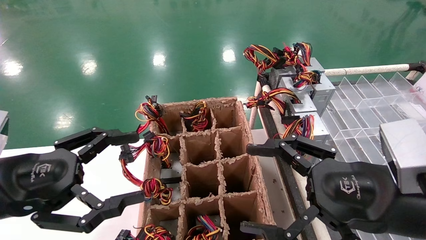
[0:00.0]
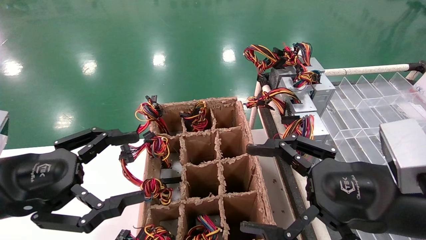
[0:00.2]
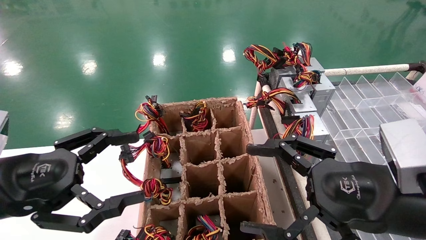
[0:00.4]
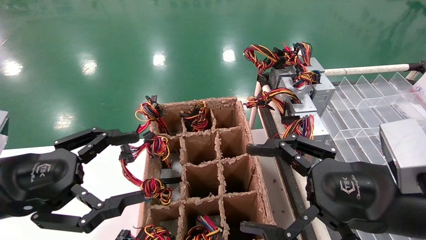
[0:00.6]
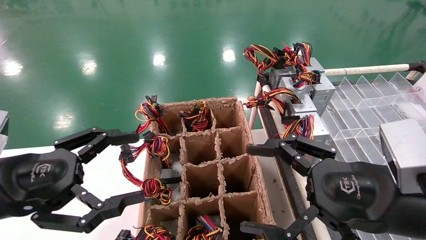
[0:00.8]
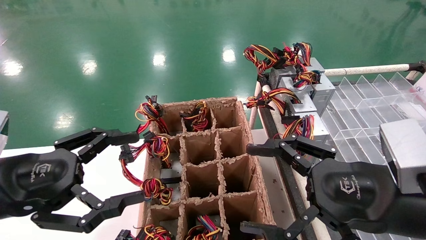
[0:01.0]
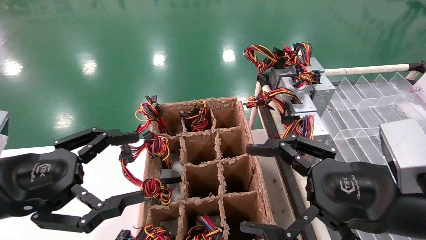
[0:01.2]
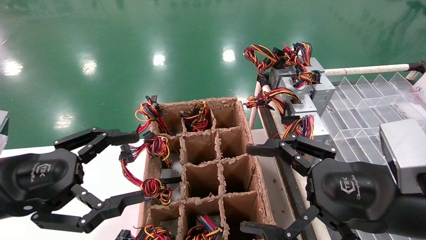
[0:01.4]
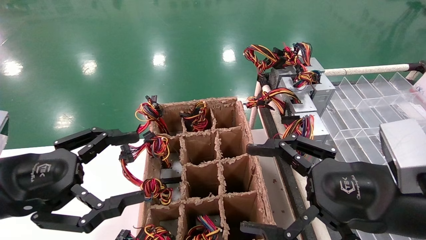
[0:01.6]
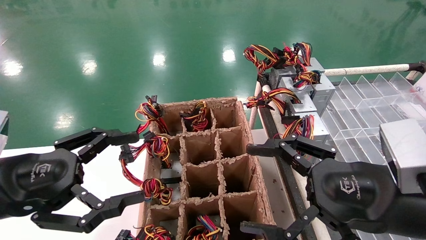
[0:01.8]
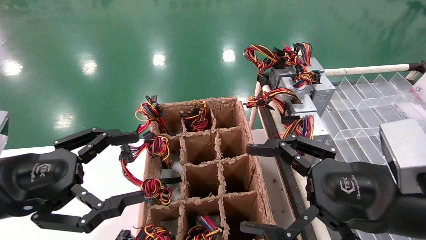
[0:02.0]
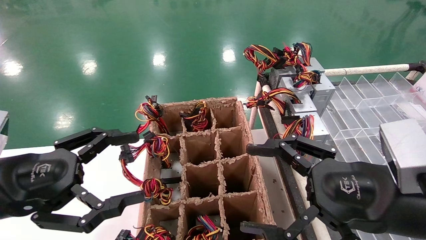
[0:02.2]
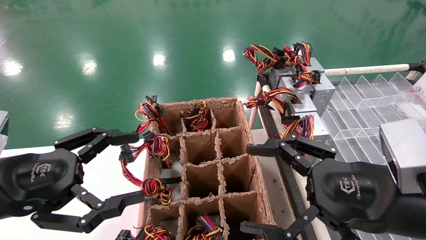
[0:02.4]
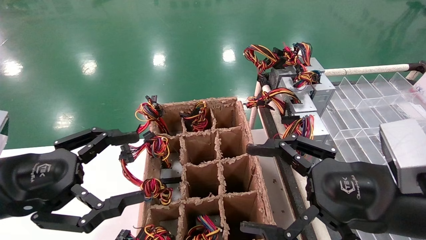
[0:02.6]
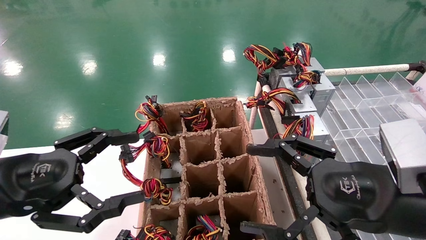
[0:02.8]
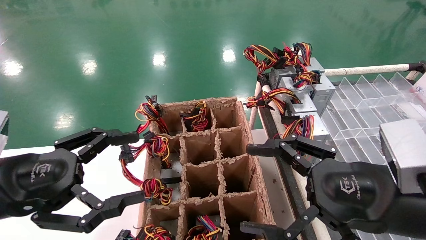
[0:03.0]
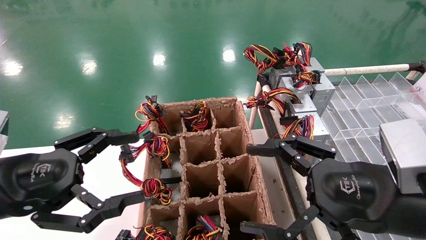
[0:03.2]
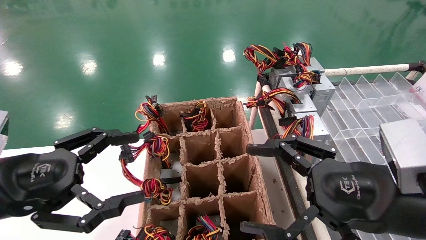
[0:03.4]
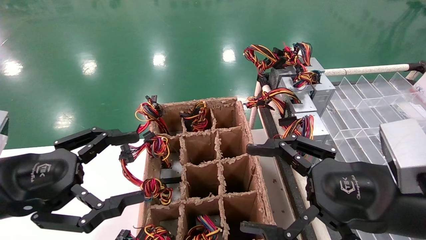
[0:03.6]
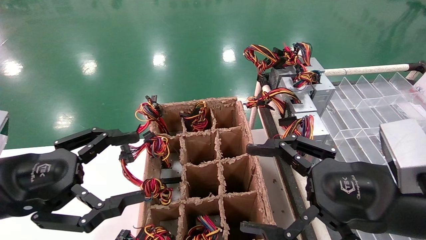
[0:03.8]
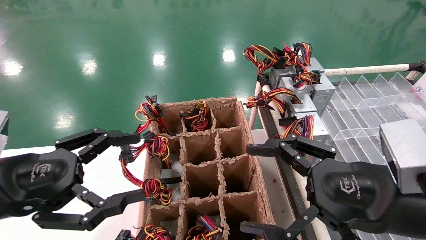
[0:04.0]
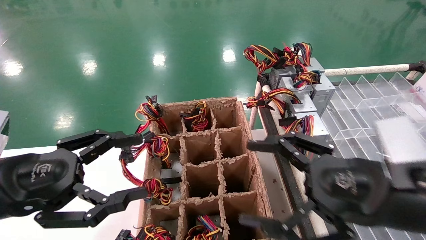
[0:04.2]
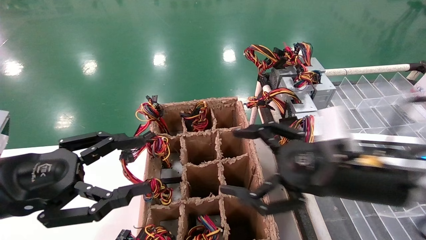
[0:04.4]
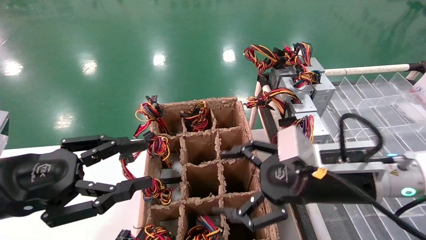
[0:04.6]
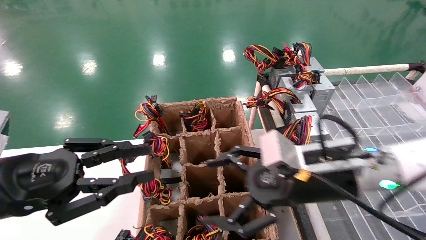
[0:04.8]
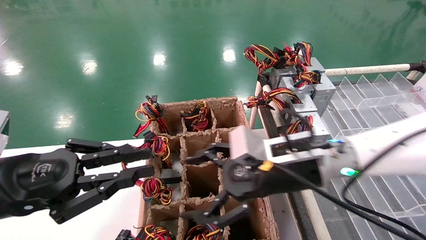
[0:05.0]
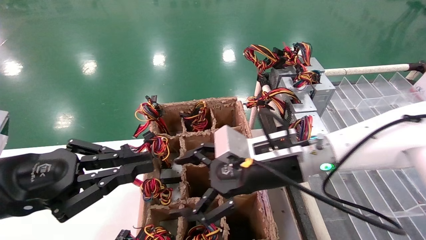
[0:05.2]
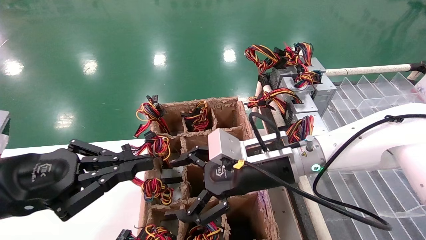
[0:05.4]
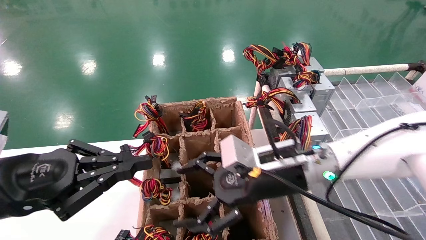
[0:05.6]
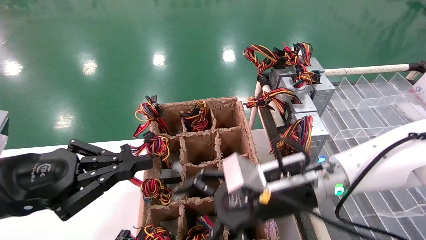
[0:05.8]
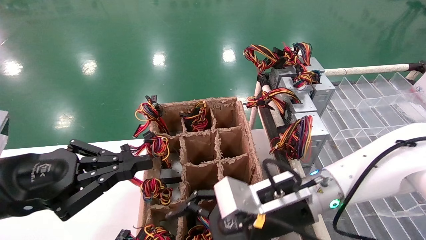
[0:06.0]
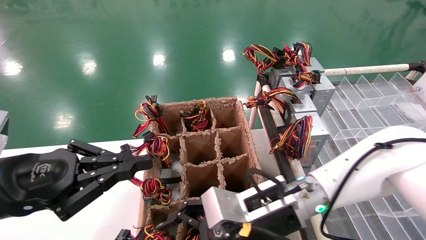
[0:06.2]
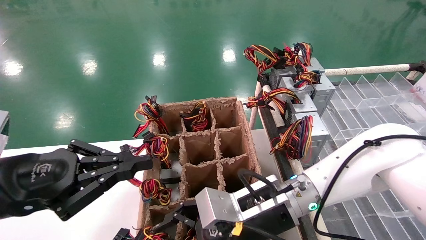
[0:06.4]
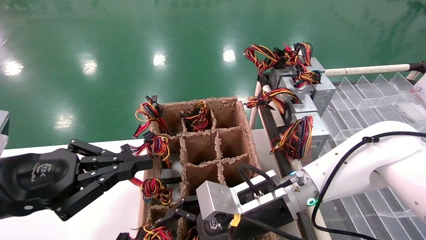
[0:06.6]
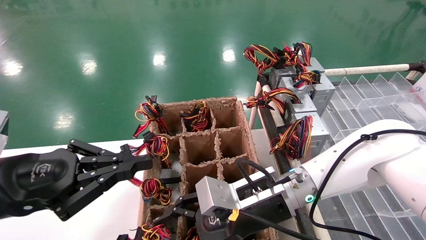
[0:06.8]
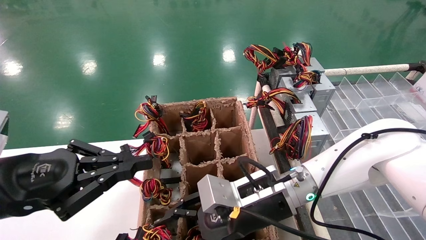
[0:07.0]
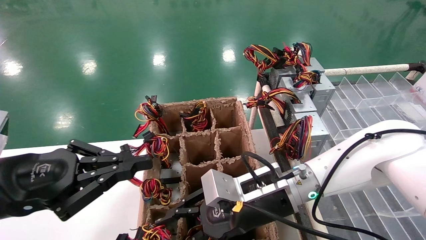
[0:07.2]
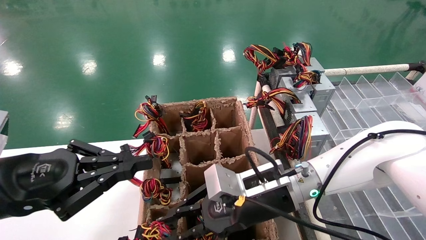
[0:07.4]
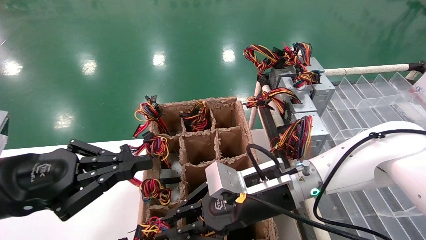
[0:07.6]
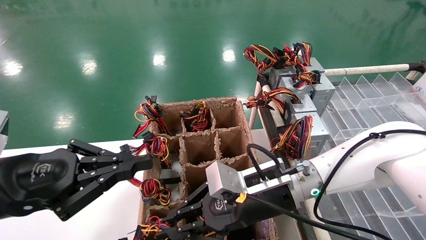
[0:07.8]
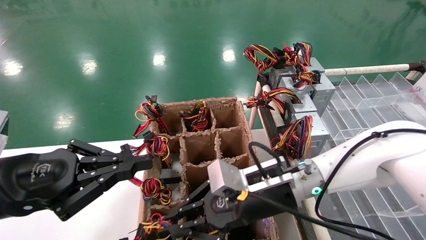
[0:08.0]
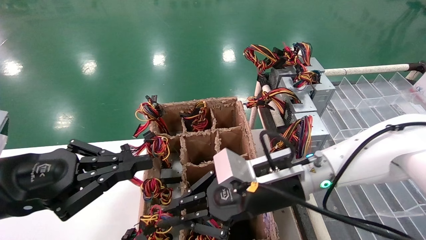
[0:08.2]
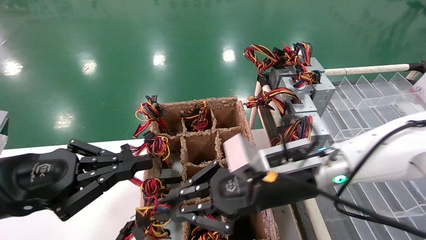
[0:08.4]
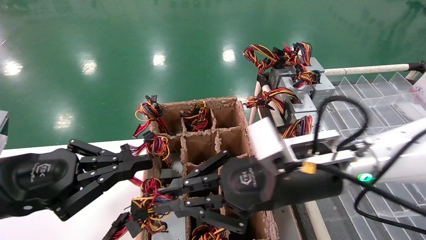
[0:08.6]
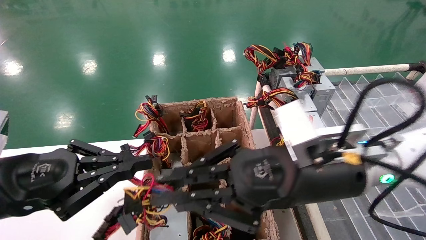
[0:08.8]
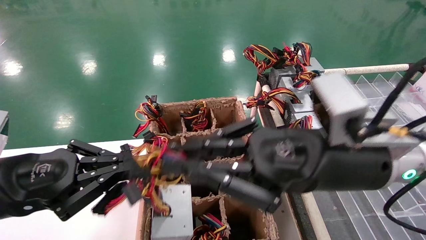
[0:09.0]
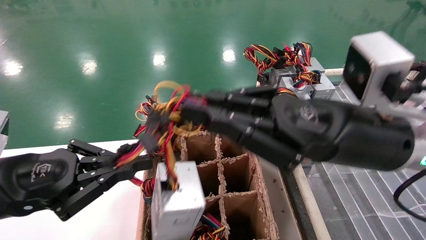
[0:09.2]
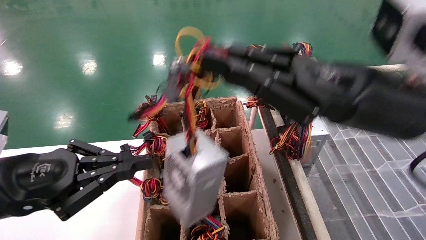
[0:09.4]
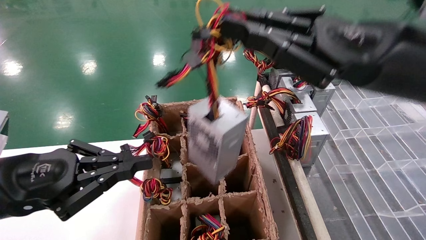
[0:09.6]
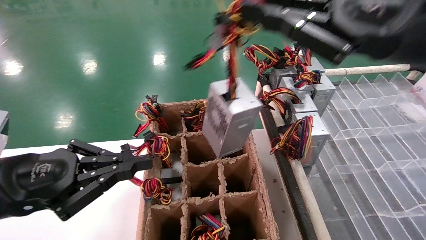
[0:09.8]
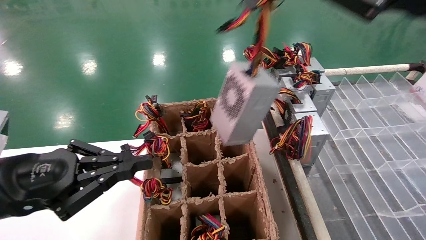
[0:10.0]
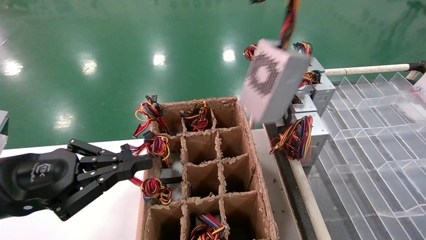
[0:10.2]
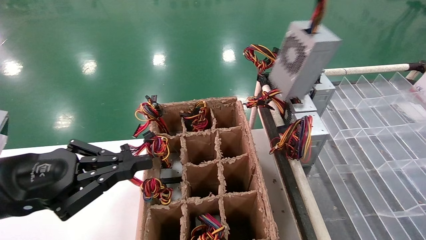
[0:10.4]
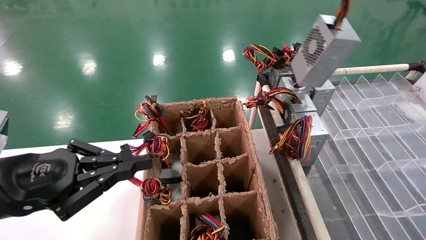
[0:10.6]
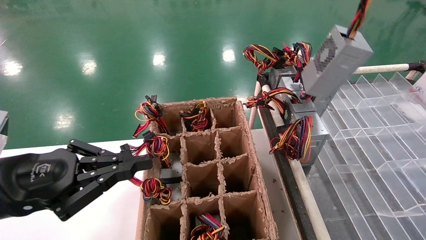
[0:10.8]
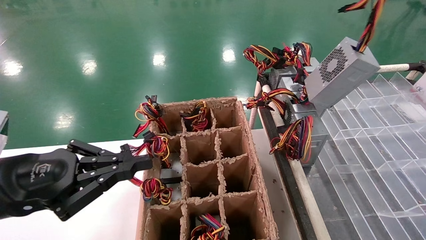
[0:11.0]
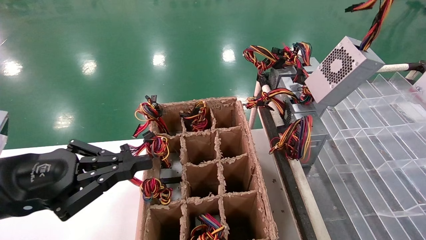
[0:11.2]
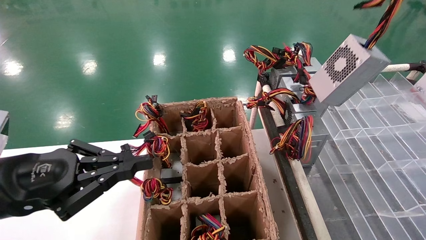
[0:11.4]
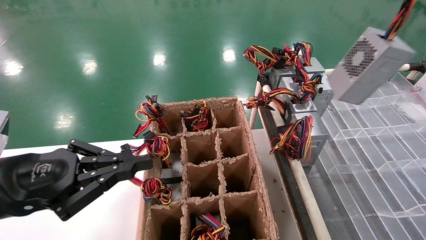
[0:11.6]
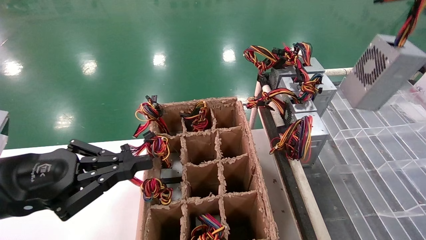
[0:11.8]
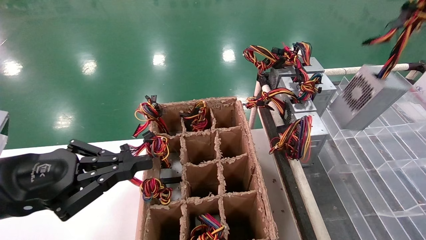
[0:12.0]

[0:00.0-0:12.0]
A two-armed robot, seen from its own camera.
Step, 0:04.6 to 0:07.8: Grab the main unit power supply from the containment box.
0:00.0 to 0:03.0: Both grippers stay put.
0:03.0 to 0:04.4: The right gripper moves forward, approximately 5 cm.
0:04.4 to 0:06.0: The right gripper heads to the left and downward, covering some 10 cm. The left gripper closes up.
0:06.0 to 0:07.6: The right gripper closes up.
0:07.6 to 0:09.0: The right gripper moves upward, backward and to the right, about 15 cm.
0:09.0 to 0:10.4: The right gripper goes approximately 30 cm upward and to the right.
0:10.4 to 0:12.0: The right gripper shifts roughly 15 cm to the right and downward.

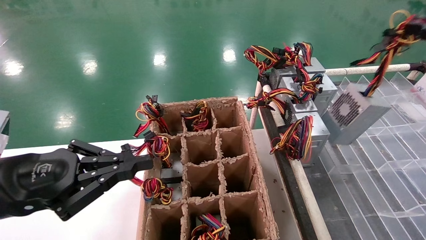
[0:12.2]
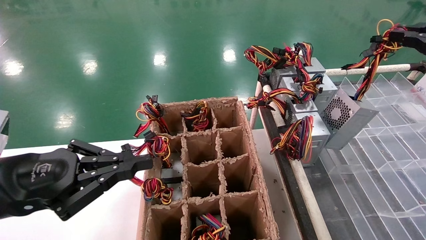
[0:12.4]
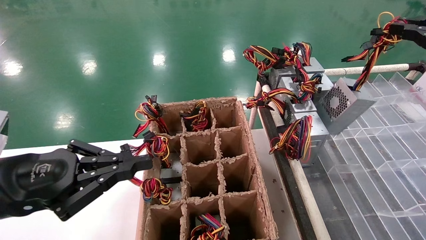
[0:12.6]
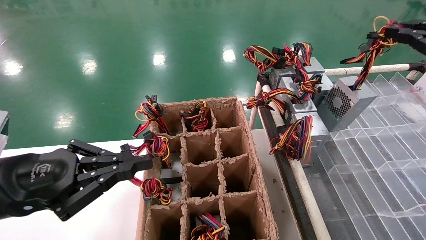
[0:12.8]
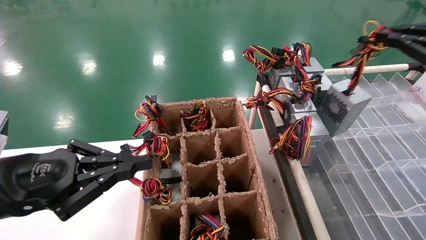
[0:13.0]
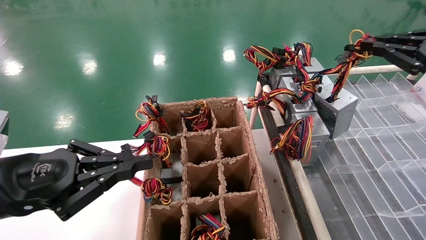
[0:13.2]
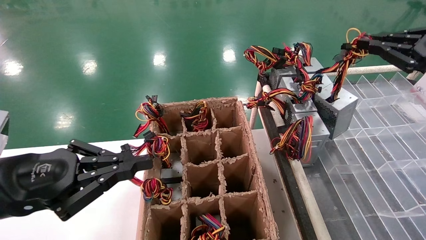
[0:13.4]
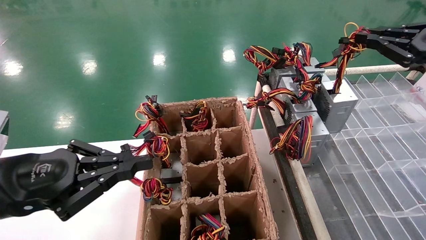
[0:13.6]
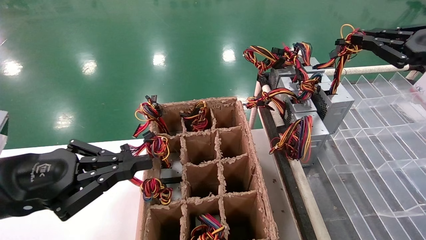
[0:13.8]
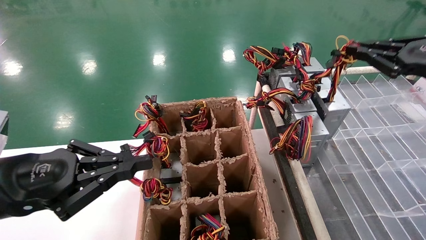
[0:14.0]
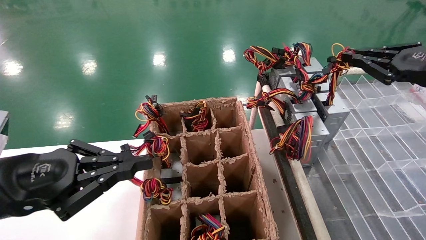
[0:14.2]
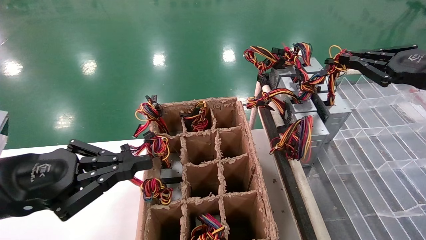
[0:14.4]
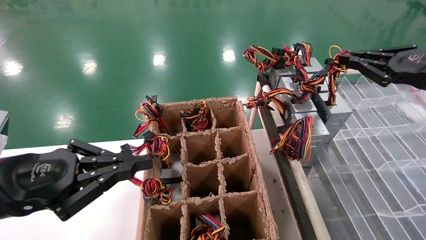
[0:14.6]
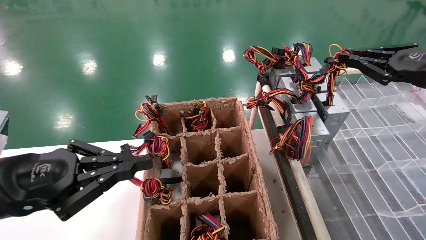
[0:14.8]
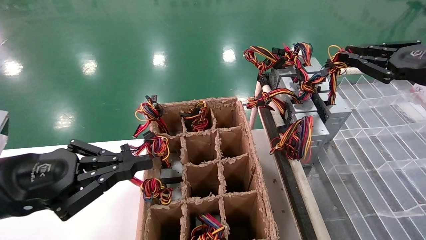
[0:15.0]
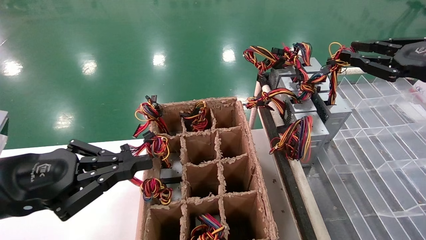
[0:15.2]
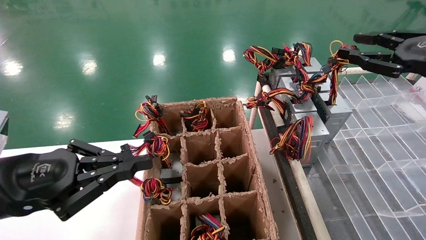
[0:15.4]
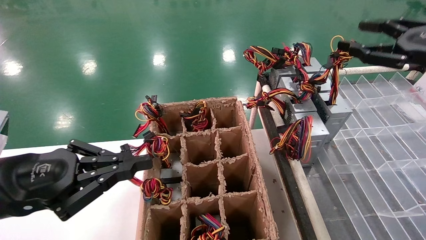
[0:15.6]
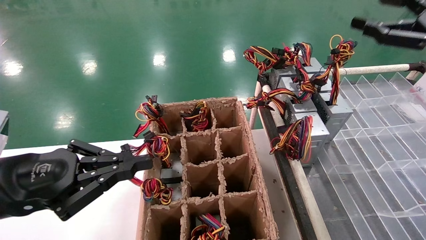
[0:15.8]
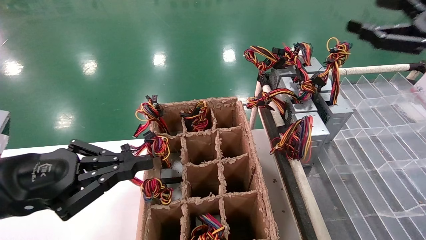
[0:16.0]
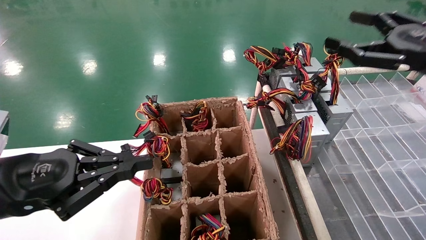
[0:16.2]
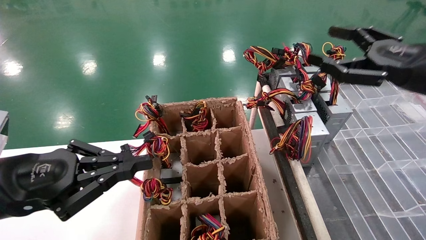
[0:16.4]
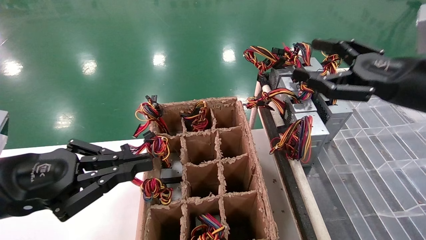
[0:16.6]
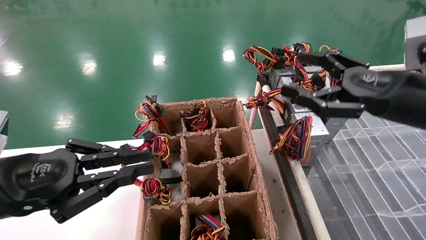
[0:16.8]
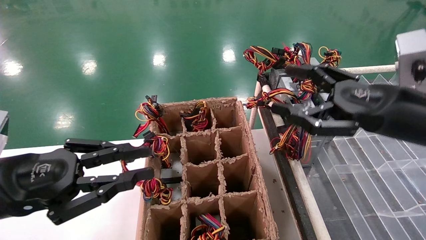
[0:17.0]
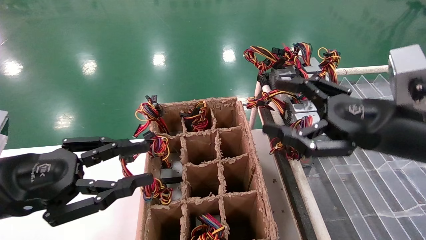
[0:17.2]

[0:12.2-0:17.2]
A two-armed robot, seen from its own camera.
Step, 0:12.2 to 0:15.6: Place the main unit power supply in the designated area.
0:12.2 to 0:13.8: The right gripper is displaced forward by roughly 5 cm.
0:13.8 to 0:15.6: The right gripper opens its fingers.
0:15.6 to 0:17.2: The right gripper moves to the left and downward, approximately 15 cm, and opens.
